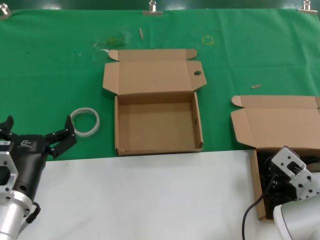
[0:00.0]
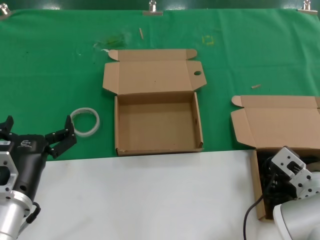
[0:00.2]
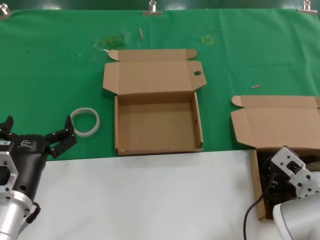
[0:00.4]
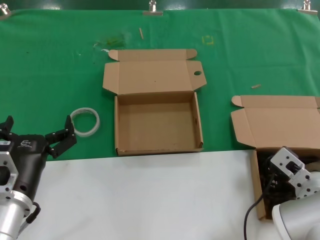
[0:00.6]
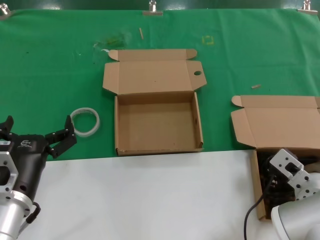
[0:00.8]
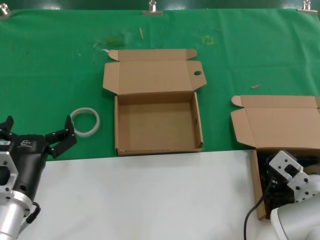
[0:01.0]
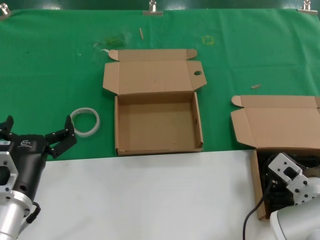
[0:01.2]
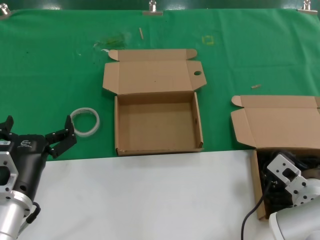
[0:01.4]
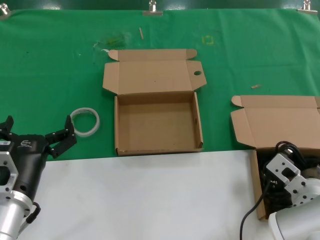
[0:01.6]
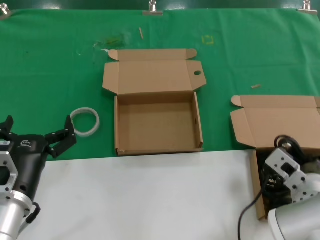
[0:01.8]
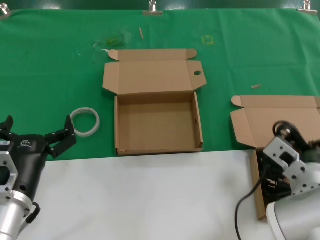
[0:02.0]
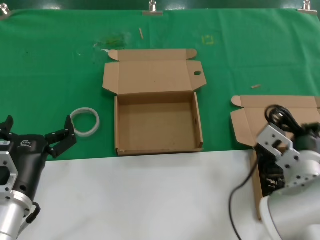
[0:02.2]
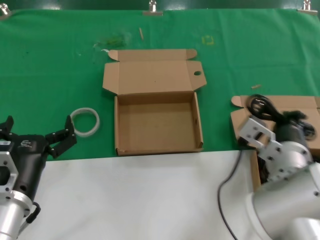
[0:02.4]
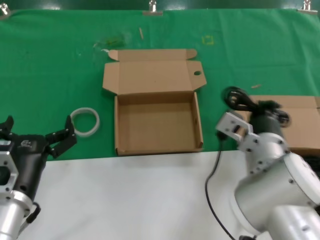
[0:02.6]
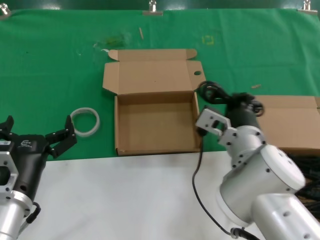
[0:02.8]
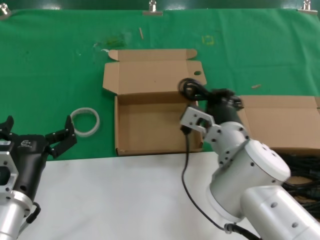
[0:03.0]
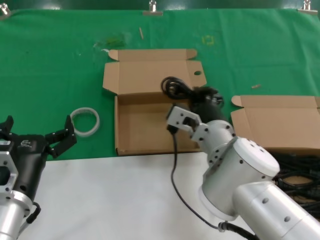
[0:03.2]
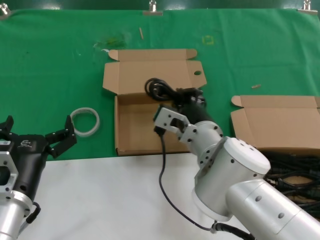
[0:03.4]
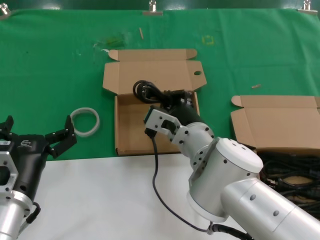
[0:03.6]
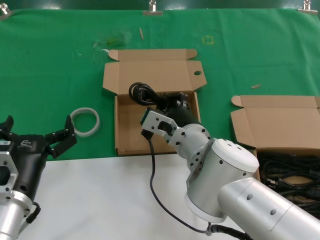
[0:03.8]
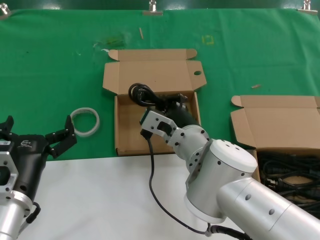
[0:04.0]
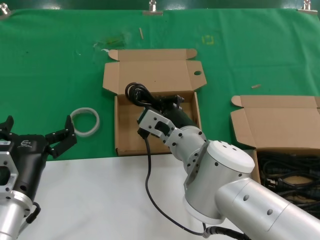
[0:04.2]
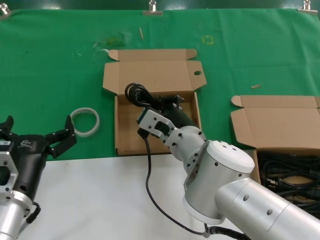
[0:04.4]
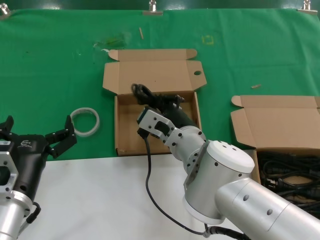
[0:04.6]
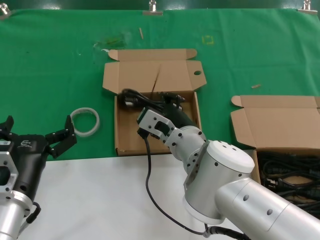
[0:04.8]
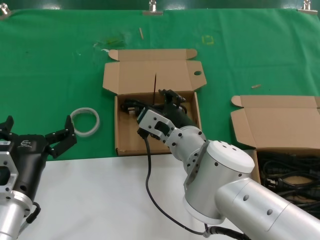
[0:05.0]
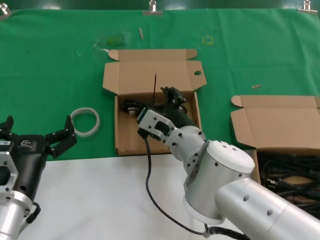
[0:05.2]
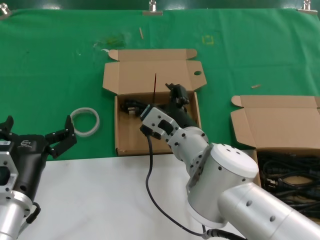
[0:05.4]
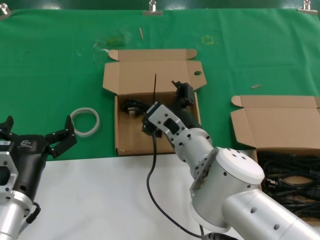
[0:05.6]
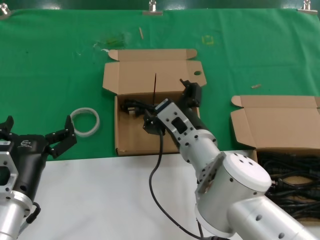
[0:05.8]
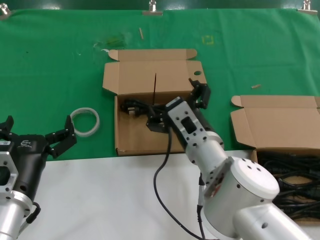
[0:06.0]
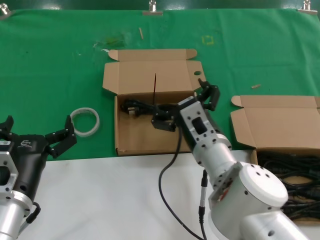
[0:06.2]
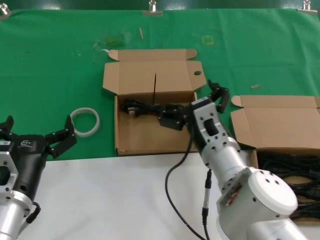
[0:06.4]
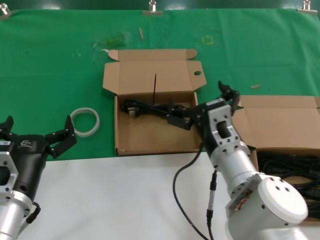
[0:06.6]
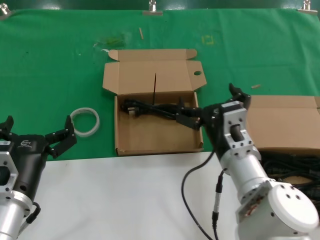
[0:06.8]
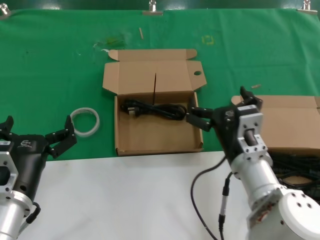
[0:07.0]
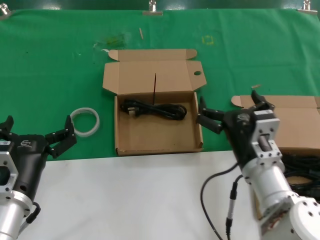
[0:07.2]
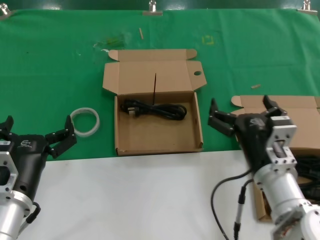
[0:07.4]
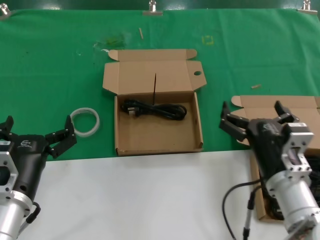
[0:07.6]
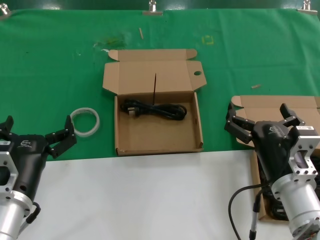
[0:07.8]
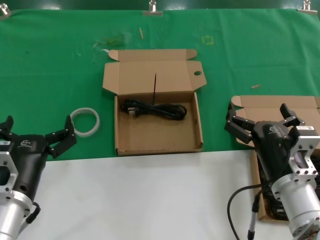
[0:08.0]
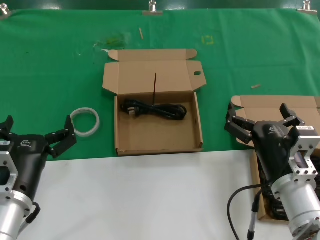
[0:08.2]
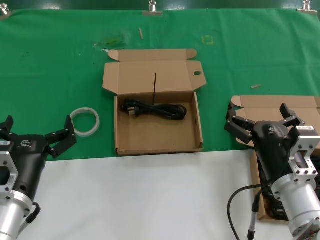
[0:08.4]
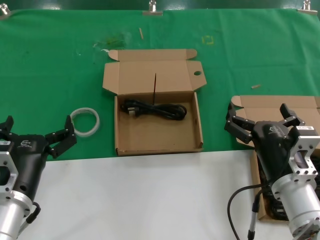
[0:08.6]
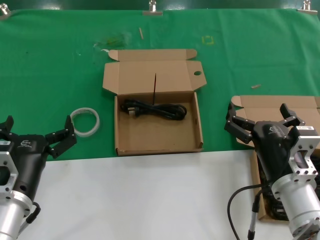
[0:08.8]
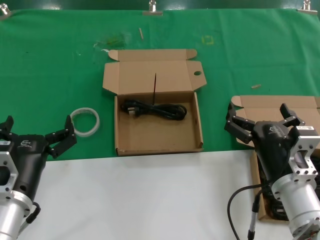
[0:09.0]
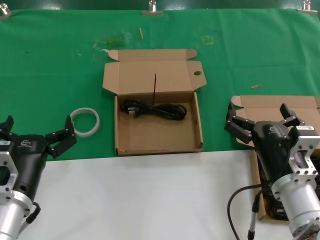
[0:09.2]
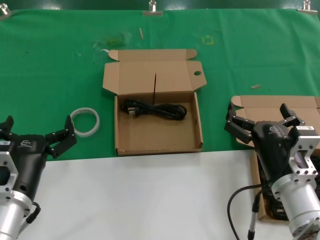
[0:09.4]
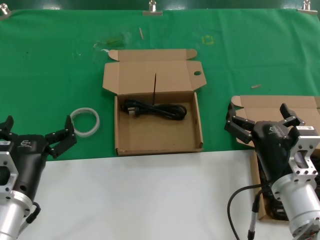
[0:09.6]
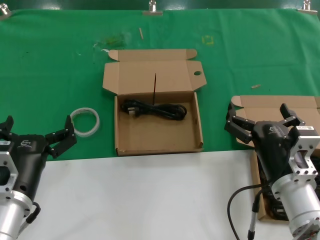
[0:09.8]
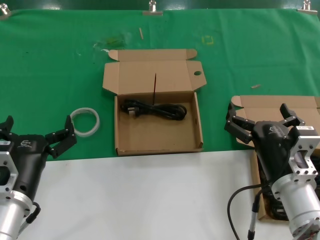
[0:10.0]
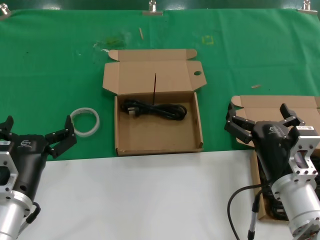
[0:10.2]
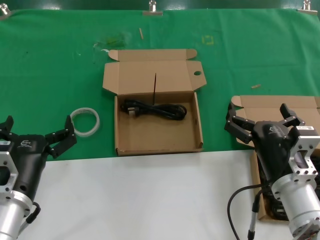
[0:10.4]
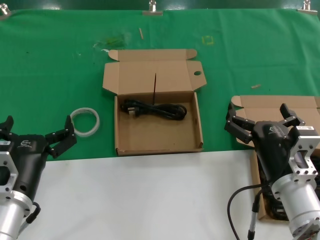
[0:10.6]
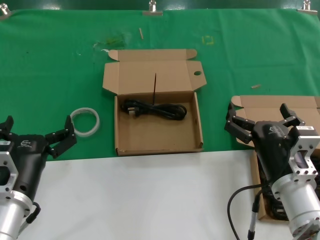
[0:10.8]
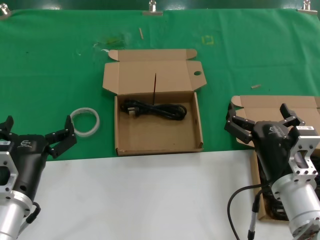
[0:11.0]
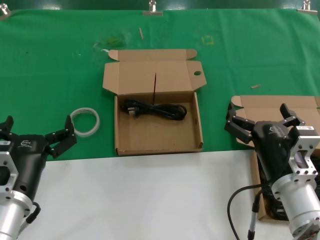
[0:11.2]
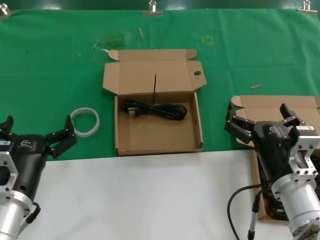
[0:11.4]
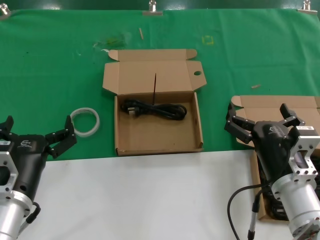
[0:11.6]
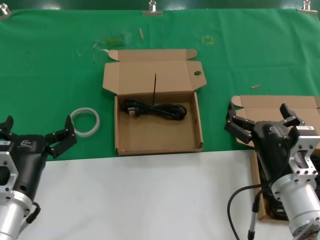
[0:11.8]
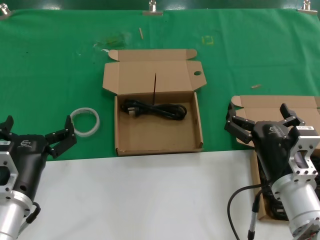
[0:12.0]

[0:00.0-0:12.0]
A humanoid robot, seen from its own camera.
Task of the whole recording: take the parts from the box containing them and put them into an empty box.
Step, 0:01.6 to 0:04.8: Place the data cable in the another box.
0:00.0 to 0:01.6: The hands stay close to where they were, moving slightly.
0:01.6 to 0:03.0: The right hand shifts some 15 cm to the left and forward.
0:03.0 to 0:04.4: The right hand travels to the left by approximately 5 cm.
0:06.0 to 0:07.6: The right hand moves to the right and backward, about 15 cm.
0:07.6 to 0:12.0: Both hands stay about where they are.

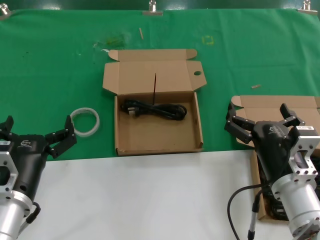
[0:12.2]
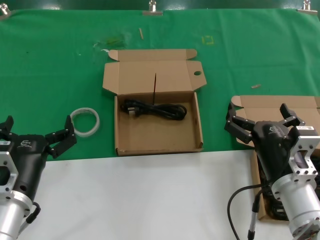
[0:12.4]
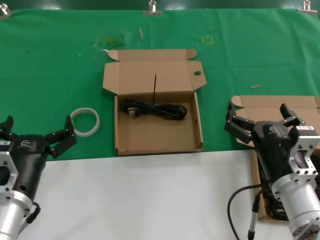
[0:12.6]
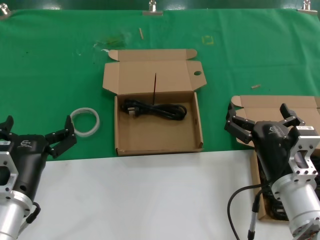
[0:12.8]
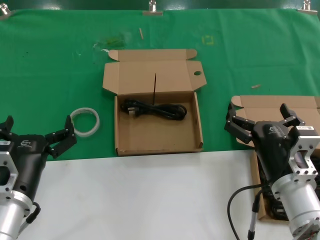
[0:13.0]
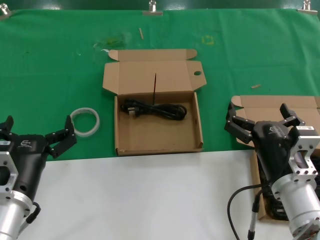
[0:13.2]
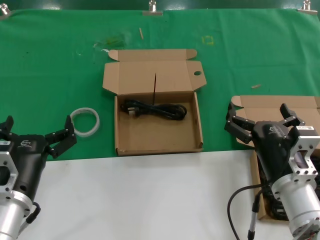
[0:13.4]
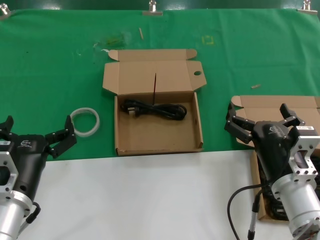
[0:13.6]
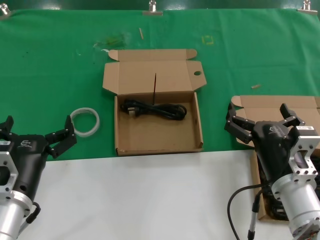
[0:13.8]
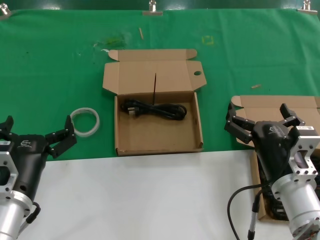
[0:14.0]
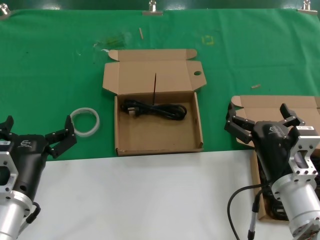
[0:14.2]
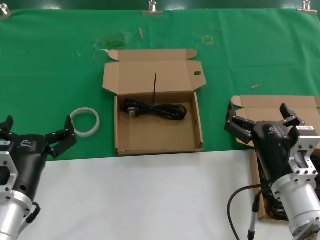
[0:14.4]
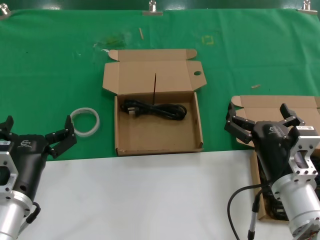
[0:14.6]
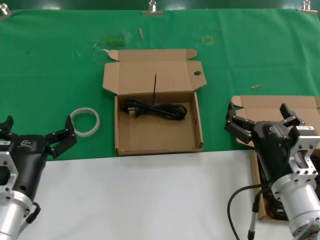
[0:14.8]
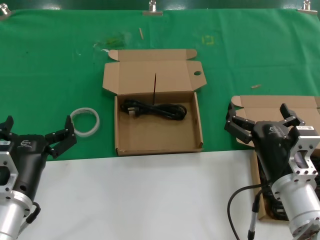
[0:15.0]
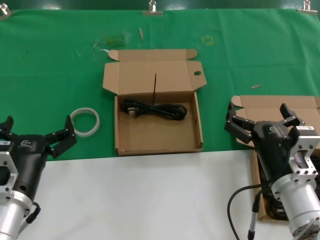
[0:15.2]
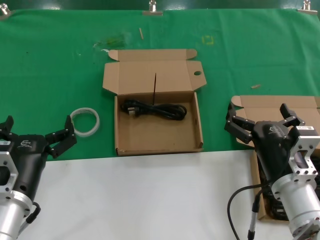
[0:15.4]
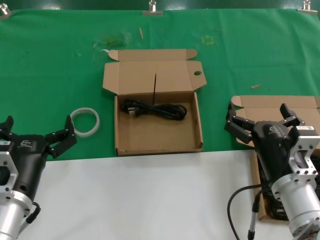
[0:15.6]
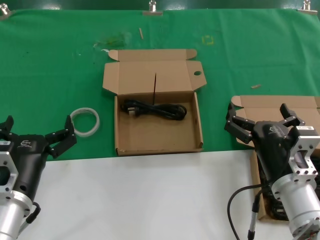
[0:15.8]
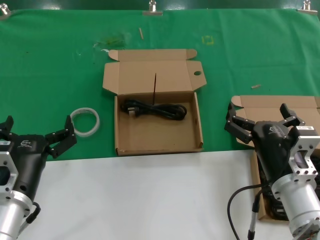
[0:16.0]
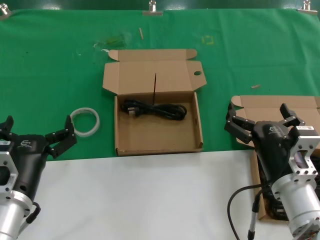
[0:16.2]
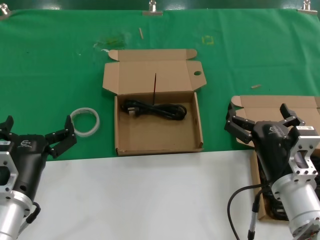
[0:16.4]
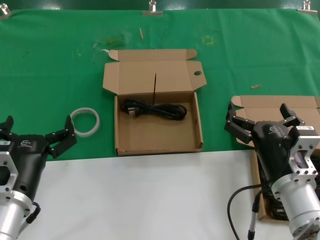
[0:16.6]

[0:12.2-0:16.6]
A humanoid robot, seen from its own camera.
Task of the whole recording: take the parts from the box containing them and put them into an empty box.
0:12.2 to 0:16.6: Both hands stay about where they are.
